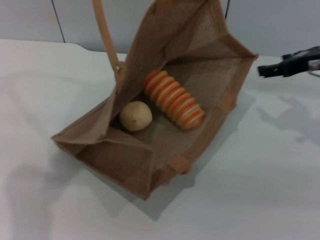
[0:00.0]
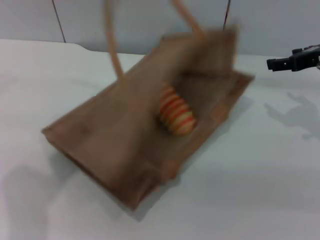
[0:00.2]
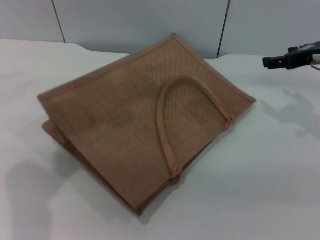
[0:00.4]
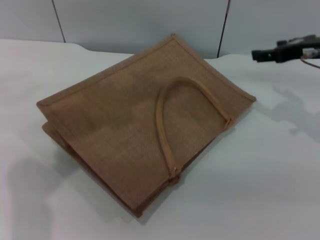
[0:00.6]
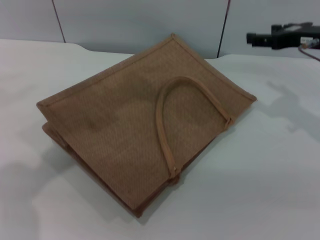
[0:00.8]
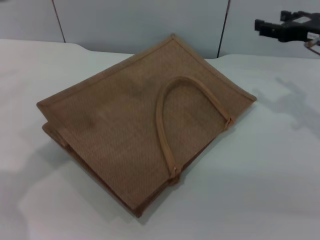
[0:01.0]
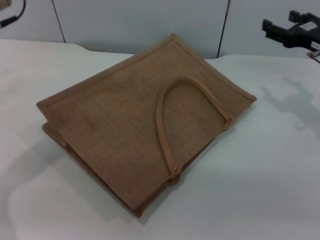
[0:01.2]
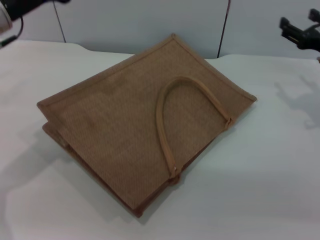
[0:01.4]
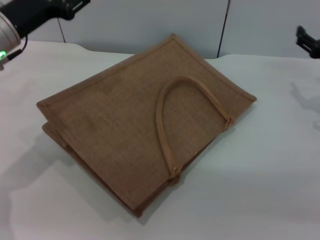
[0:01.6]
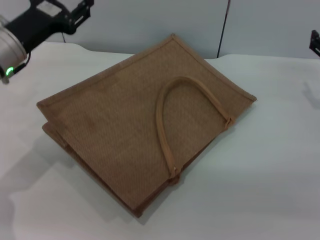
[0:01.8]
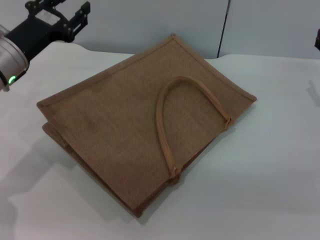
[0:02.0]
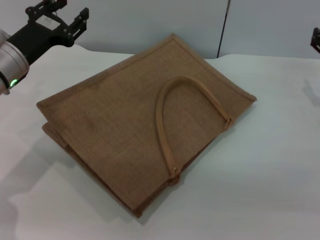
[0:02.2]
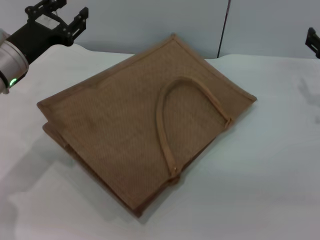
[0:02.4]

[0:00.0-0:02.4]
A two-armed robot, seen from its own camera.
Task of the whole recording: pick up the bread and egg yolk pastry from the table and place it in the brown handbag.
Step, 0:00.2 to 0:01.2: Lower the woven bag with the left gripper to close it.
0:00.0 to 0:01.2: The left gripper shifts approximately 15 cm downward, and opens its fingers.
0:01.2 to 0:02.4: The right gripper shifts by about 5 cm. Meanwhile the left gripper is displaced downward by some 10 cm.

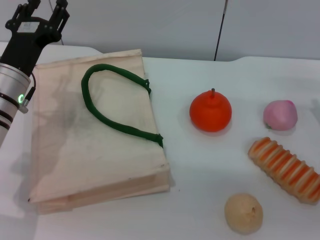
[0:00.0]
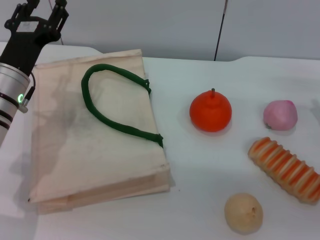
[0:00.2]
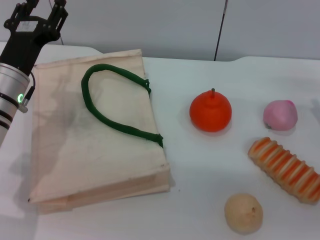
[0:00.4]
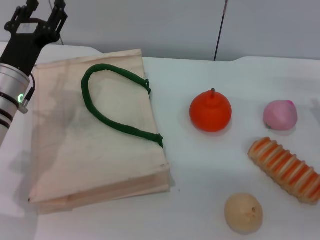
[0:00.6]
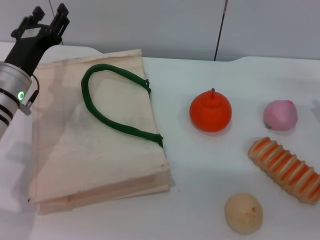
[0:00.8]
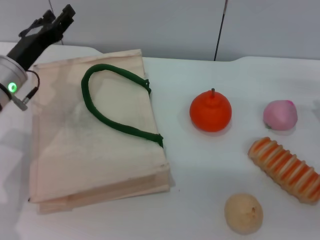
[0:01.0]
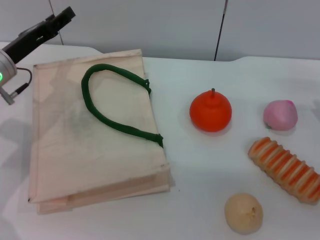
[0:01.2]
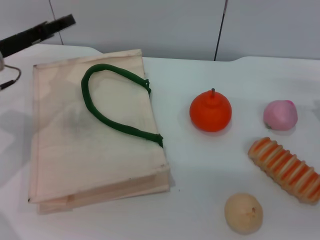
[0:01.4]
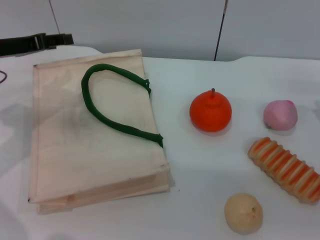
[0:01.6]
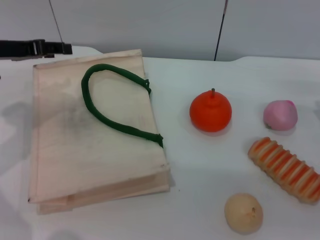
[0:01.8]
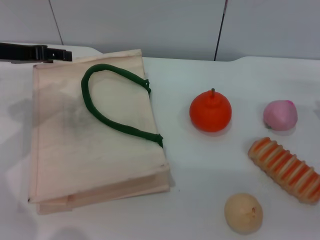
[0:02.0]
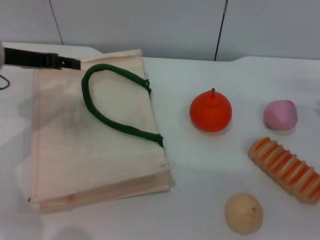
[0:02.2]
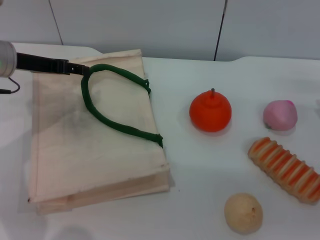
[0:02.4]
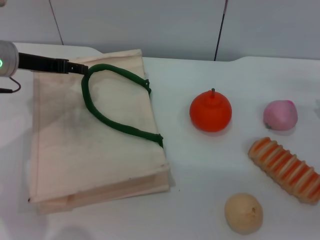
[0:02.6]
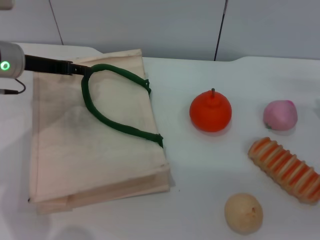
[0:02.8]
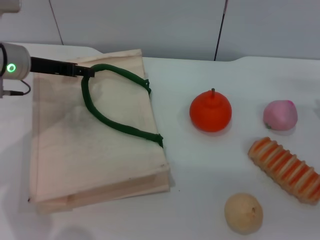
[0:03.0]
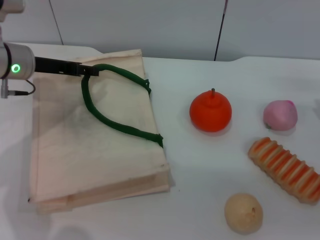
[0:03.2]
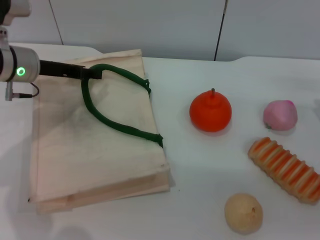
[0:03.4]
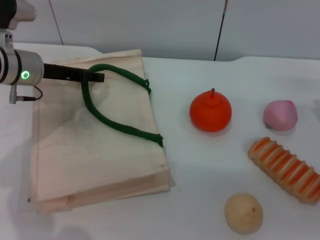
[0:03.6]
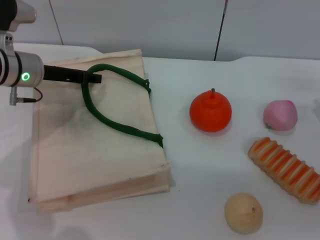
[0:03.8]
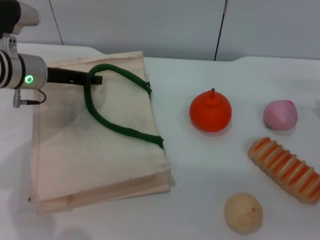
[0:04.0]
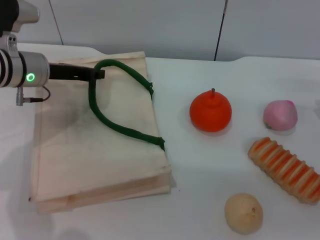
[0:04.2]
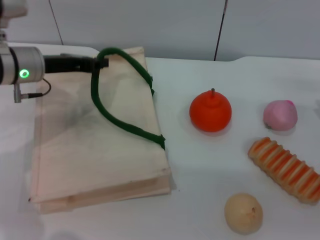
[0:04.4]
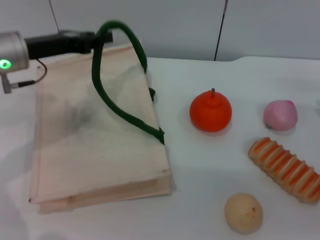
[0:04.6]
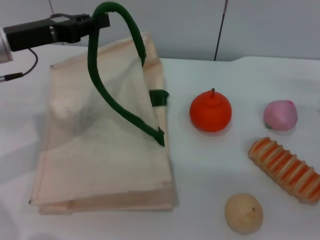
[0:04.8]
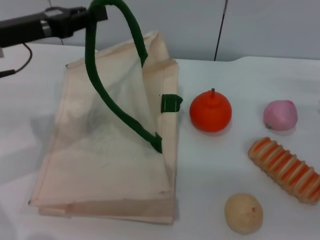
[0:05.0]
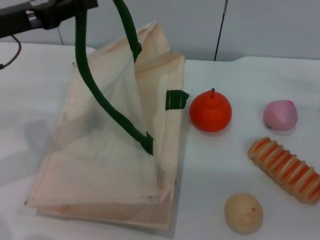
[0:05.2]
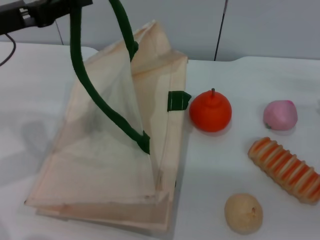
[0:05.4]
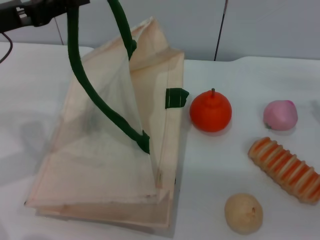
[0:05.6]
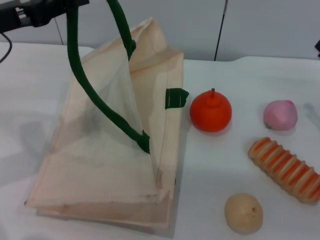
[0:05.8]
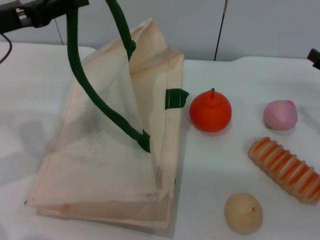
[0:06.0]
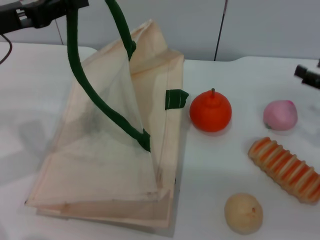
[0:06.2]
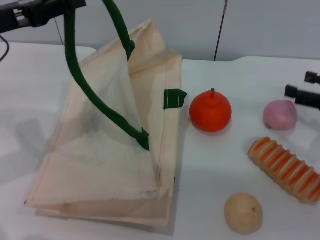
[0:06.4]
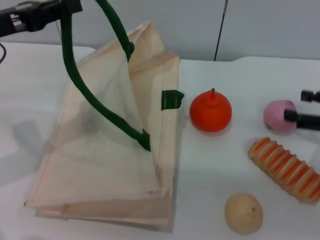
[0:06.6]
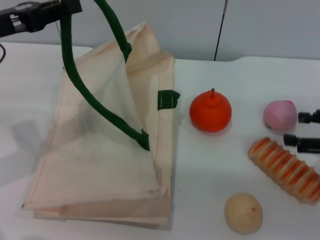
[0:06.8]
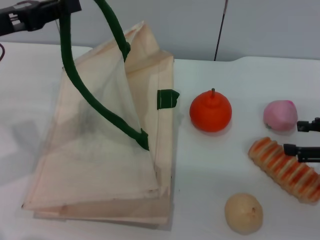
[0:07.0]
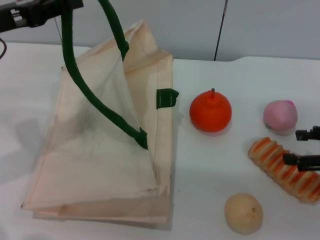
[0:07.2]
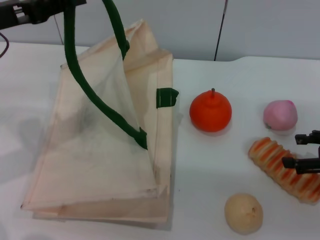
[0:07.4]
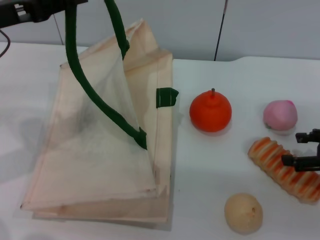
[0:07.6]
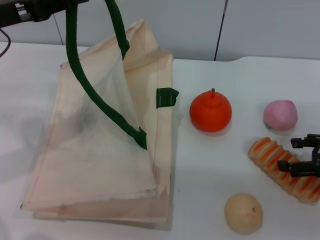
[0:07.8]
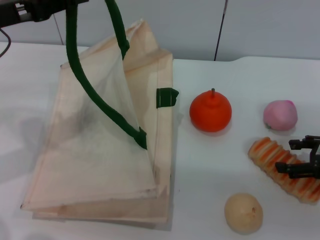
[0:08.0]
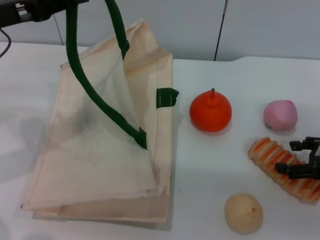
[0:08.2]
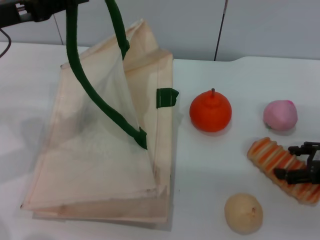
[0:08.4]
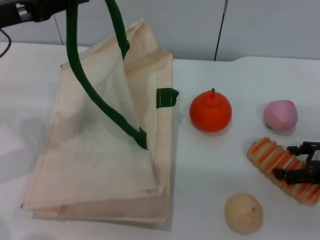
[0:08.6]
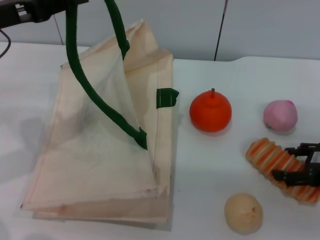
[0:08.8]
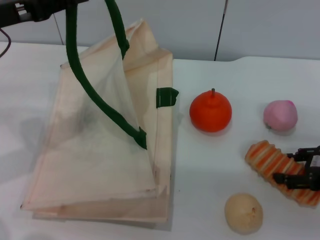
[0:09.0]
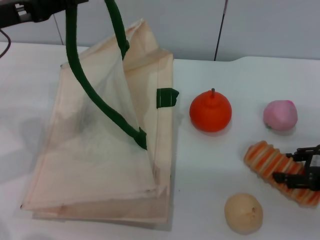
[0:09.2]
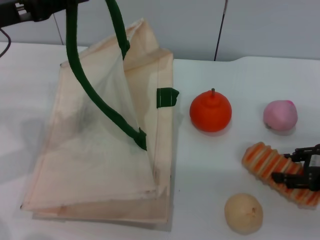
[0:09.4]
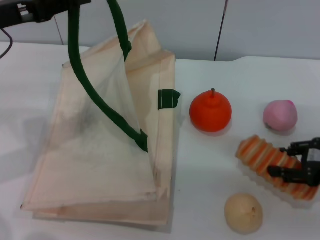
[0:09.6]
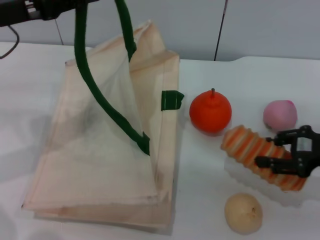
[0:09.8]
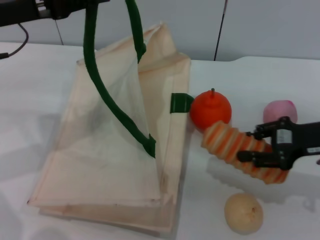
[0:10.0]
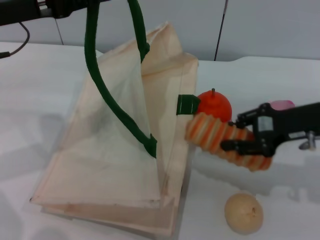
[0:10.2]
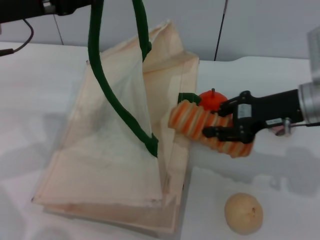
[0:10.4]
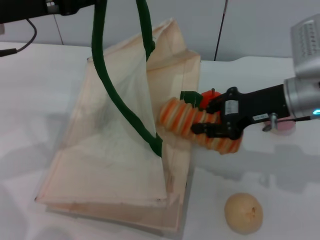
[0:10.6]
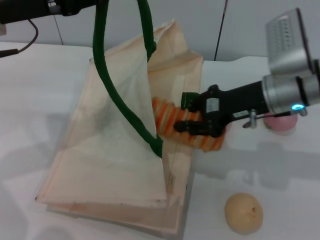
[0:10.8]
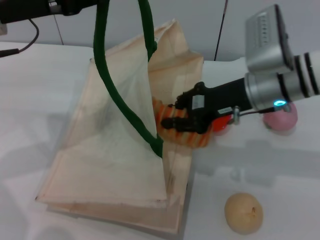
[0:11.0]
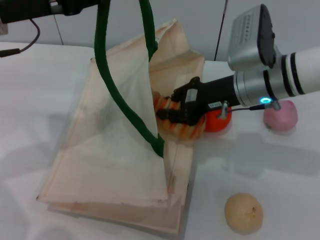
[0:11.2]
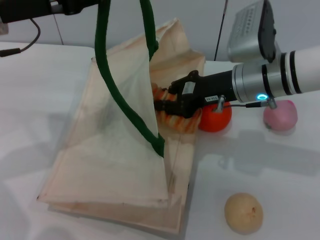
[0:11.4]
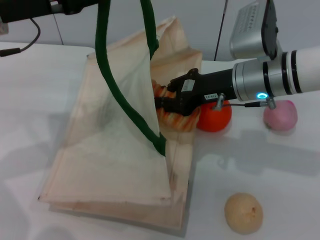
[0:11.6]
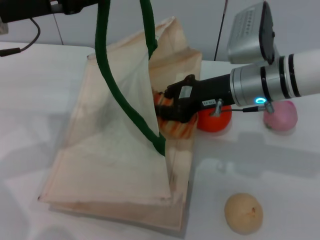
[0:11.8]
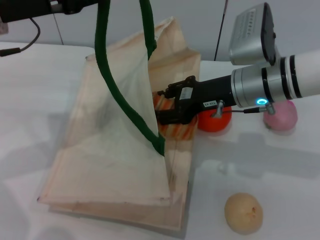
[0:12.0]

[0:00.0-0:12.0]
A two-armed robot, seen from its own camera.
Task of the whole recording: pick up the bread from the table and place it in the white handbag.
Step, 0:00.0 to 0:05.6: Lift the woven bag with the left gripper to open it.
Step, 0:05.8 to 0:09.8: Pick up the bread with the right gripper.
0:00.0 to 0:01.6: The left gripper shifts roughly 10 cm to the left and upward.
0:01.6 to 0:03.0: The left gripper moves roughly 5 cm.
0:03.0 to 0:04.4: The left gripper closes up.
0:04.4 to 0:06.0: The left gripper heads upward and backward, covering about 10 cm.
0:07.6 to 0:09.0: There are only small adjustments of the grippers.
0:09.0 to 0:10.4: The right gripper heads to the left, forward and upward, covering roughly 15 cm, and closes up.
0:10.4 to 0:12.0: The right gripper shifts about 10 cm to the left.

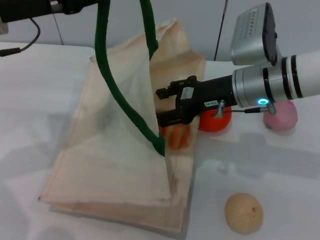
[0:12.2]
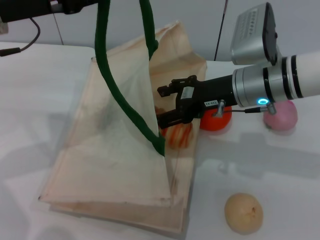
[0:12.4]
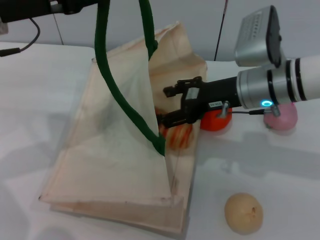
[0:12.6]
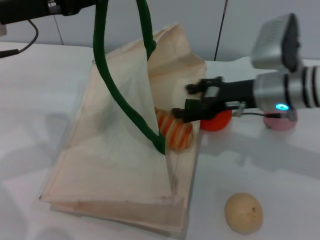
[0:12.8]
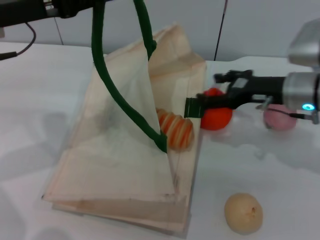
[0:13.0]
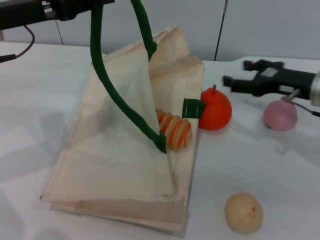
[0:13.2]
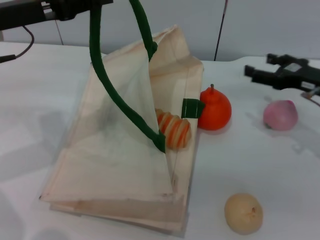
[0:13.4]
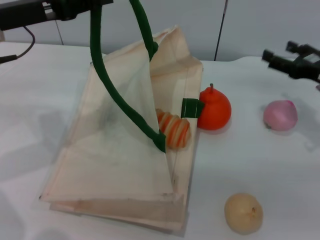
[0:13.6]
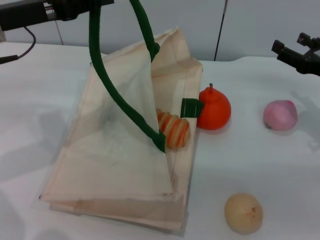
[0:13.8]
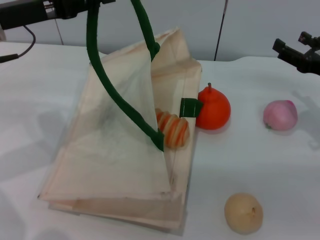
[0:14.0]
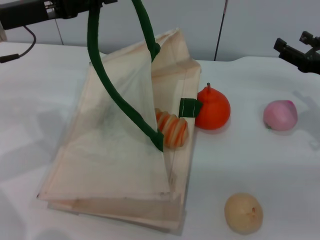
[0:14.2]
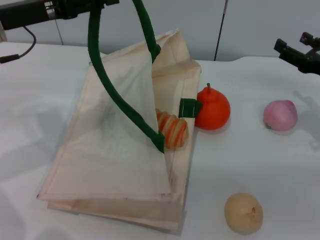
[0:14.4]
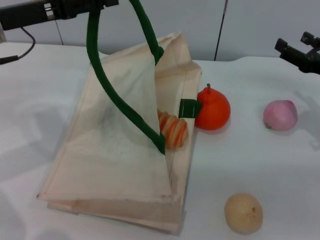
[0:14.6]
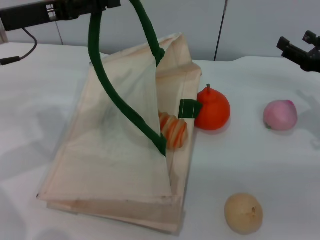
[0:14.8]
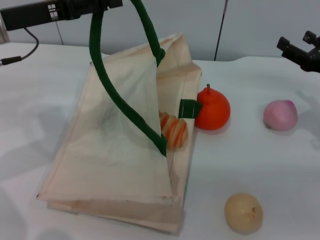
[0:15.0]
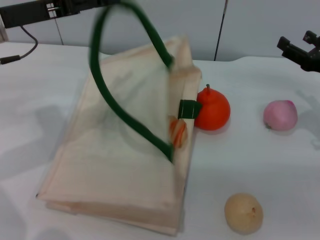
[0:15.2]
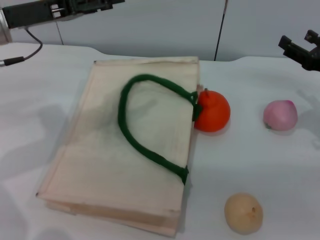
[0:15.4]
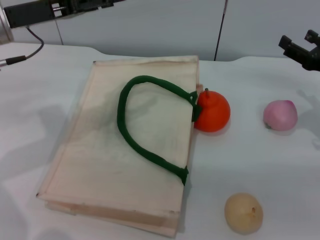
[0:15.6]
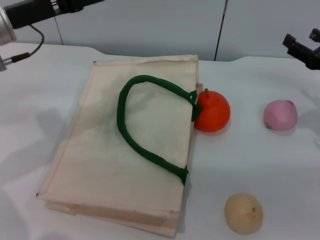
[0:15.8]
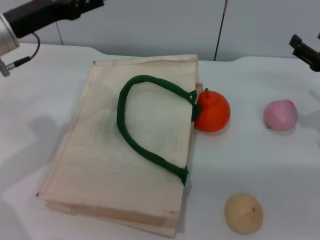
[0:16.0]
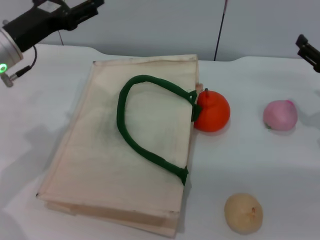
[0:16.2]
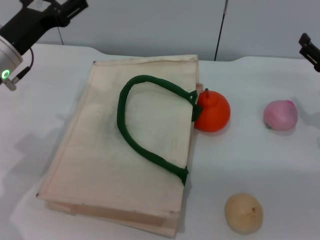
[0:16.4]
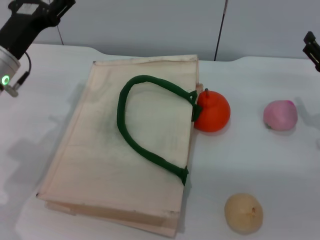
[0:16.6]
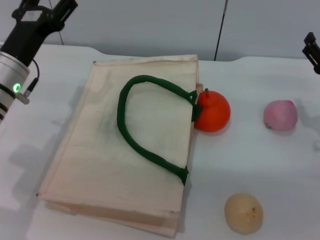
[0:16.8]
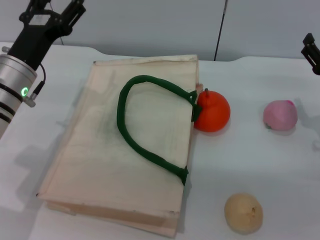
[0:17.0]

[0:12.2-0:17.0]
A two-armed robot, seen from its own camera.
Task of the whole recording: pick up the bread from the table and place it in the white handbag.
Step, 0:13.2 to 0:16.0: Lower the woven bag with the left gripper to close it.
0:12.2 to 0:13.8: The right gripper moves to the right, some 15 cm, and opens.
0:13.8 to 0:15.4: The left gripper opens its fingers.
0:15.4 to 0:17.0: The left gripper travels downward by some 10 cm. Meanwhile the right gripper changes place by about 5 cm.

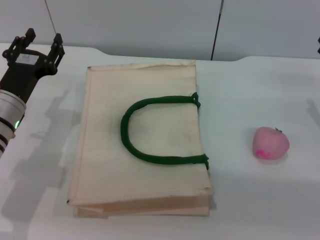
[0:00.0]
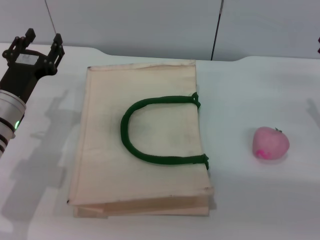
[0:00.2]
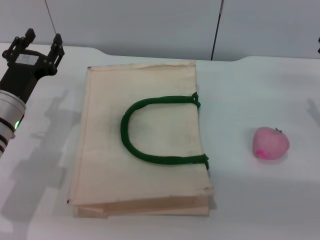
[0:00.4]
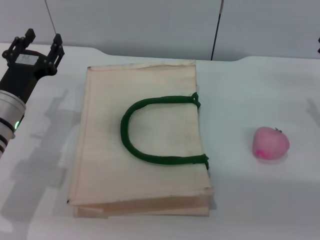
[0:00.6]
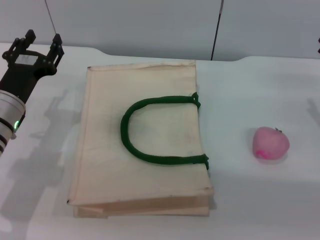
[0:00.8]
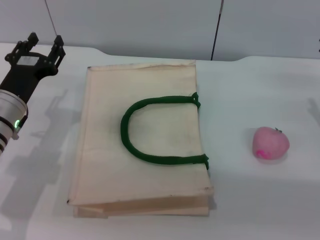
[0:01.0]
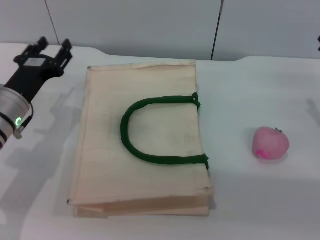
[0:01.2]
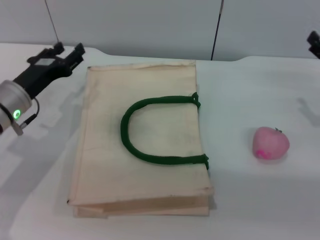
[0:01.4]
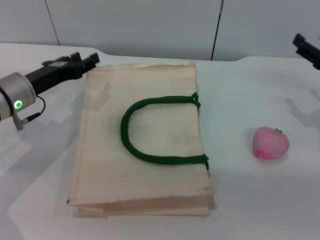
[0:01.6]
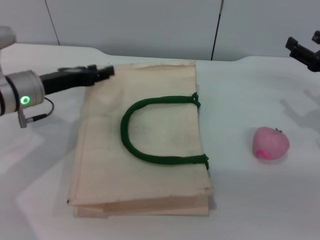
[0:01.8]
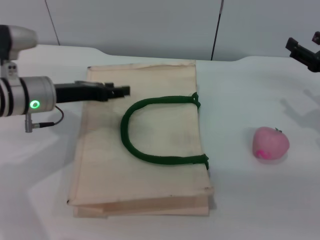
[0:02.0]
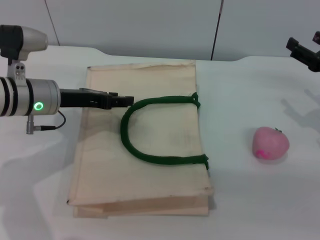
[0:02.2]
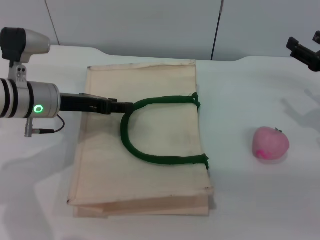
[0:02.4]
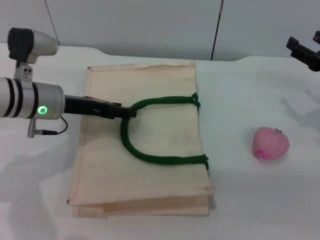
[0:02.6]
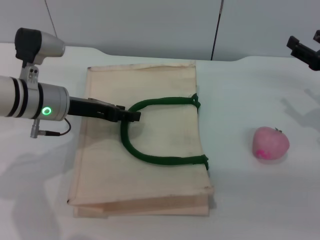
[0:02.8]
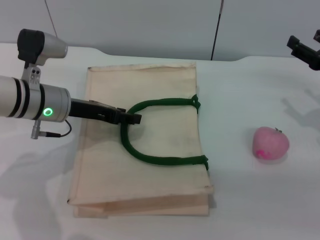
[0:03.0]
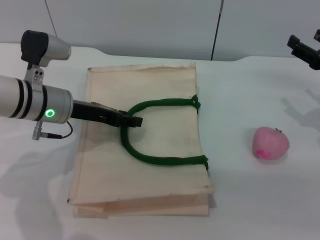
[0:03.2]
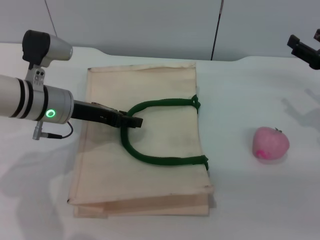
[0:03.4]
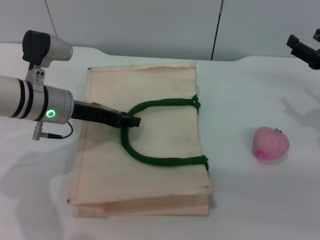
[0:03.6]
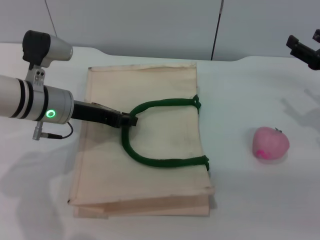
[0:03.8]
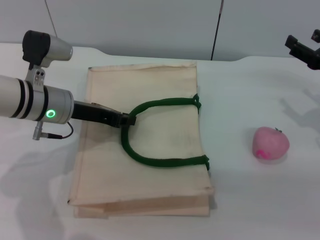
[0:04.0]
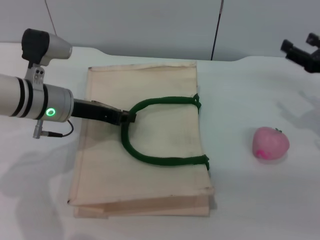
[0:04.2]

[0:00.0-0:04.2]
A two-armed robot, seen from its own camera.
Task of the whole recording: pick up the peach from the table and place it in the white handbag.
Step, 0:00.0 to 0:04.2: Lift the woven bag with the left gripper to open it.
0:01.4 to 0:02.8: The left gripper moves about 5 cm.
0:02.8 to 0:04.2: The left gripper closes.
